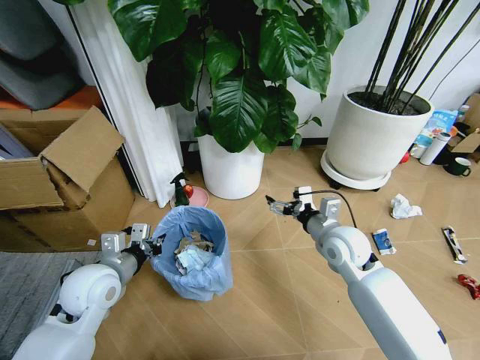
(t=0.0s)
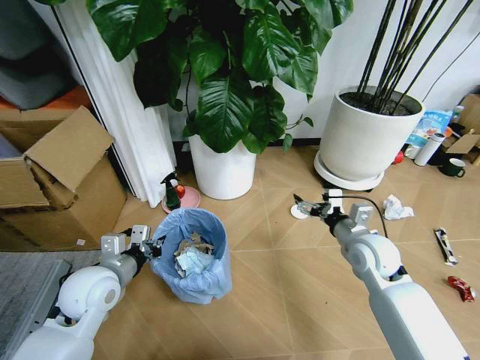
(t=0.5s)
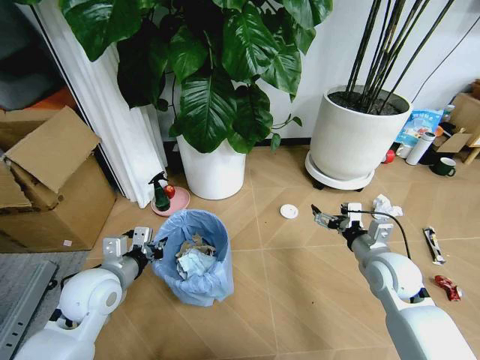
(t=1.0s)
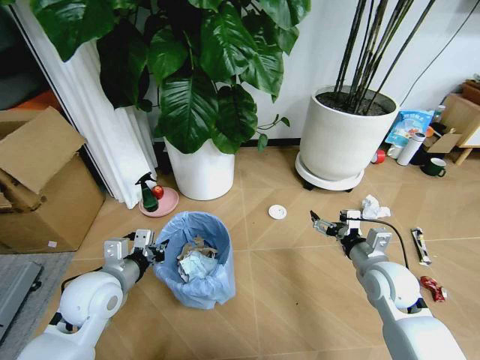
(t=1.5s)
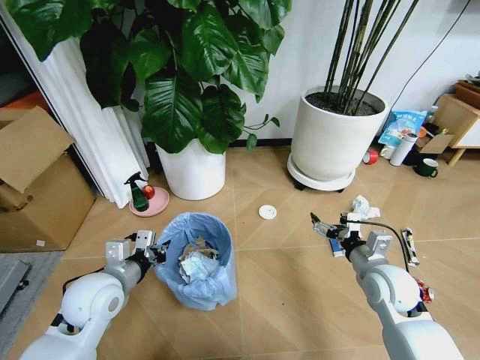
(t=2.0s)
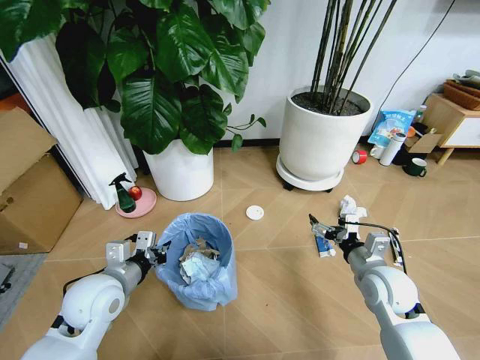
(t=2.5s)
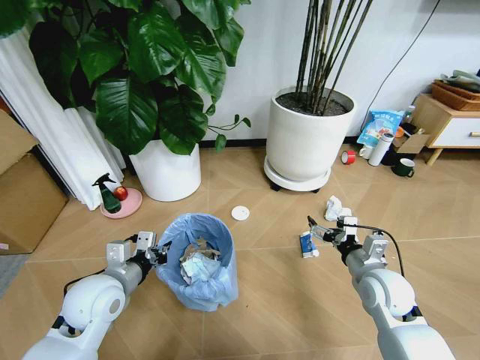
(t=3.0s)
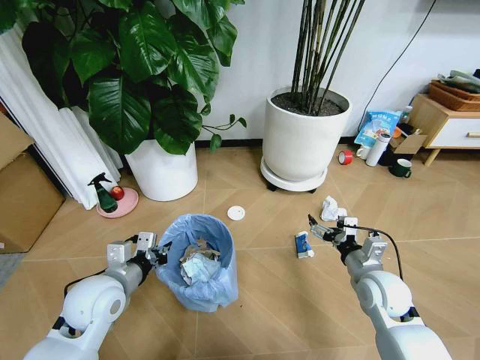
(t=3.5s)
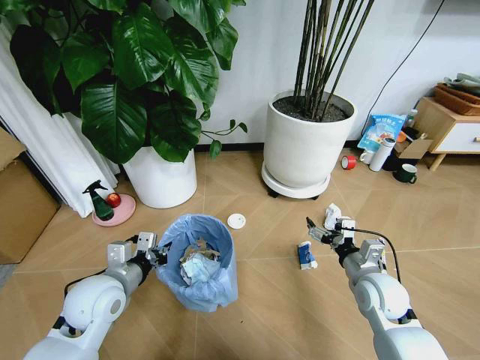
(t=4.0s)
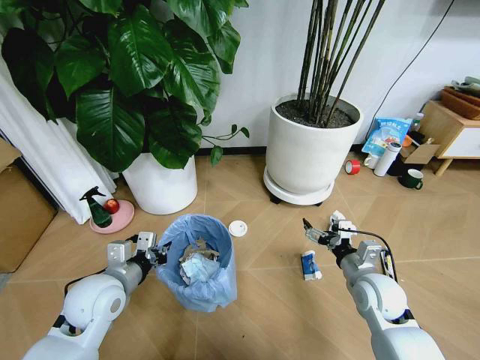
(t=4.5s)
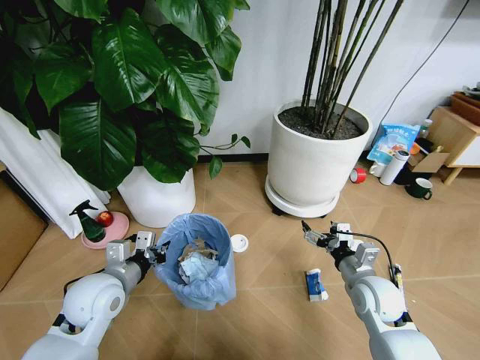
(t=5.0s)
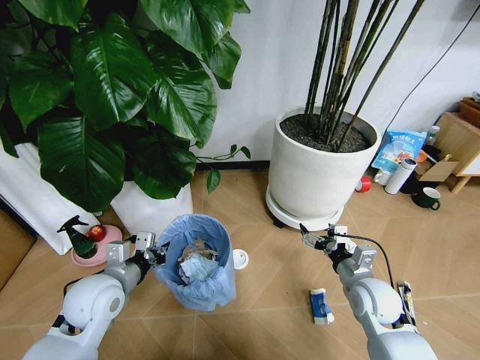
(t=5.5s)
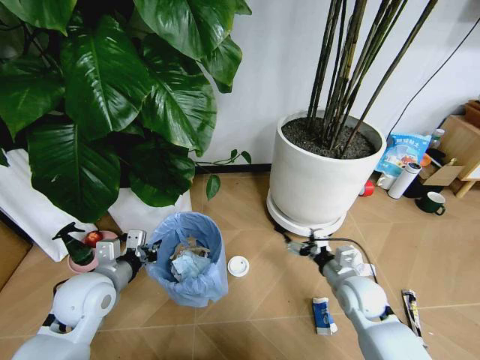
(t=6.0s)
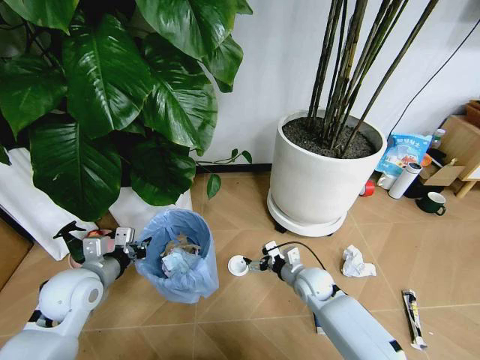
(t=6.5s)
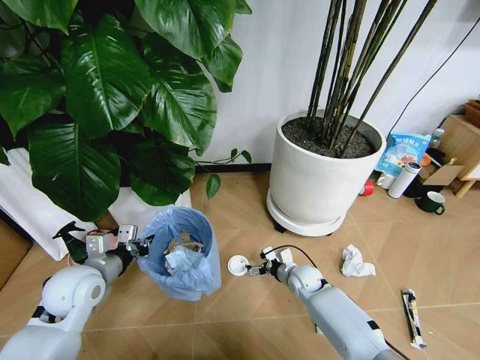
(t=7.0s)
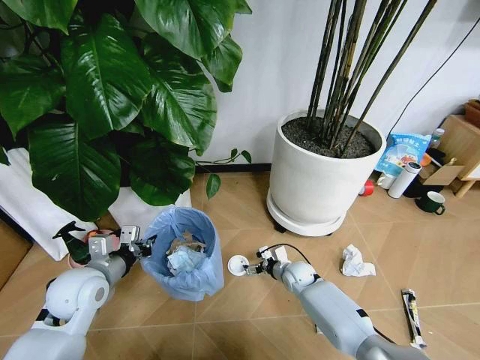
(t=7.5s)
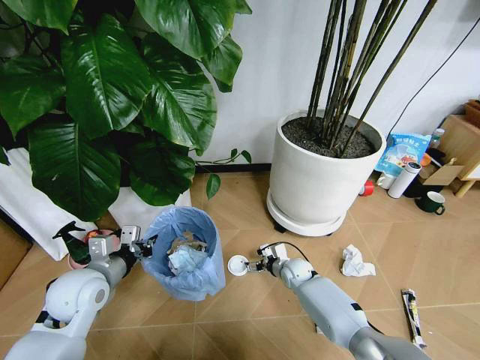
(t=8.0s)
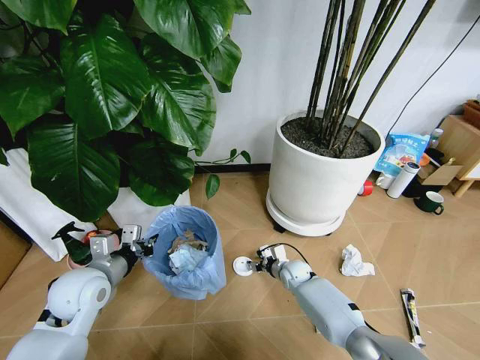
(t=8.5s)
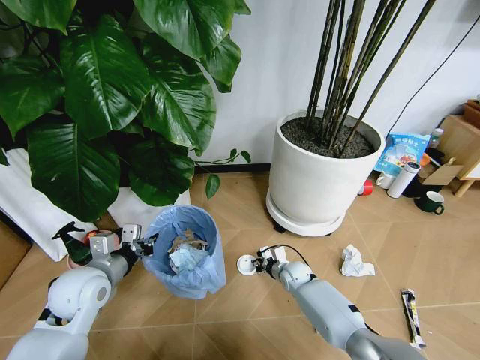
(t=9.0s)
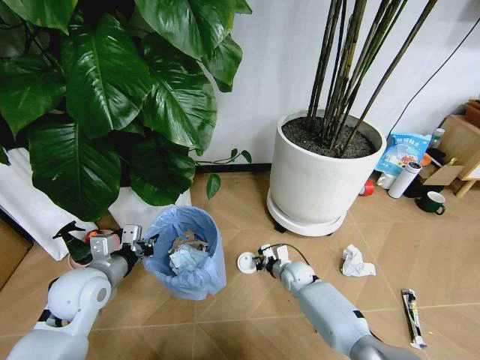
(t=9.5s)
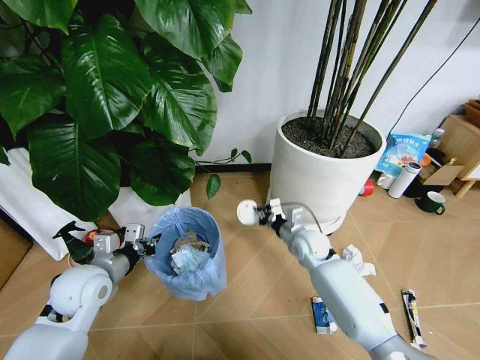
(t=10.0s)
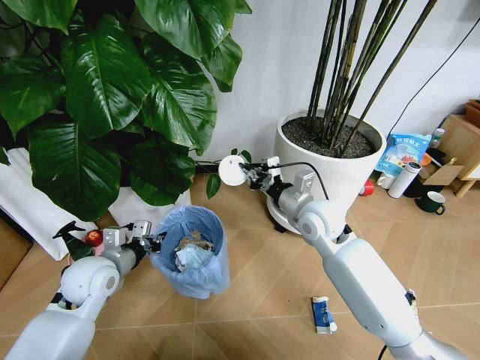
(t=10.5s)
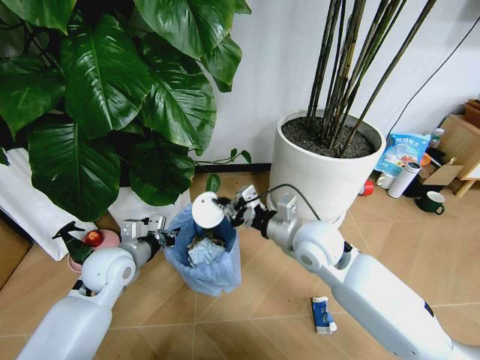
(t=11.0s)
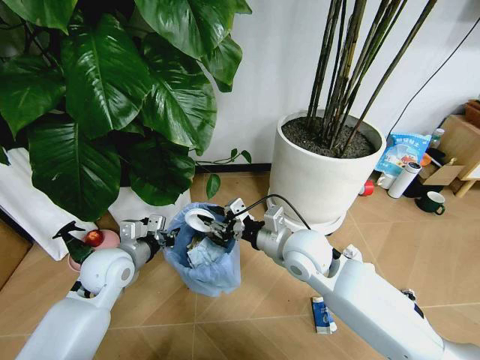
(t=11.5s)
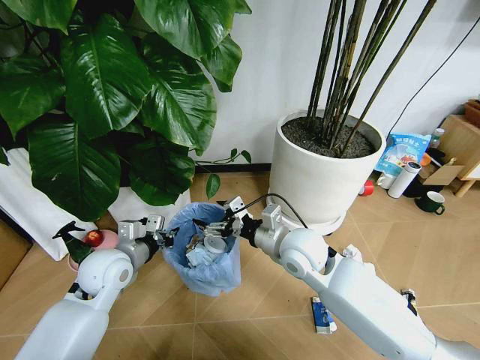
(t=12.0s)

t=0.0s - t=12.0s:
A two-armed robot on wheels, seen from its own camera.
Task of the whole recording: Pick up the trash bin and place the garbage on the floor into it.
t=0.0s - t=2.0s: The right gripper moves to the right and backward, some 10 cm.
t=4.0s - t=6.0s: The right gripper shifts by some 5 cm.
t=6.0s - t=8.0s: The right gripper is displaced downward, forward and to the left by some 20 cm.
t=8.0s - t=10.0s: The right gripper shifts approximately 15 cm upward, and closes its fingers.
t=10.0s - t=12.0s: The right gripper travels upward, backward and to the left by roughly 20 cm, and opens up.

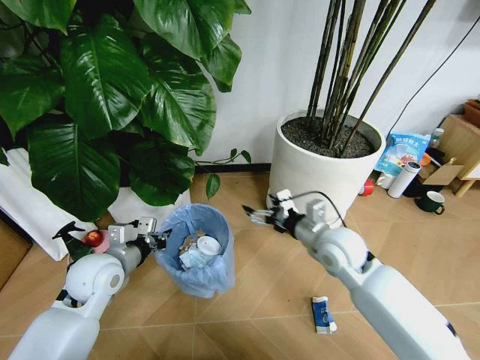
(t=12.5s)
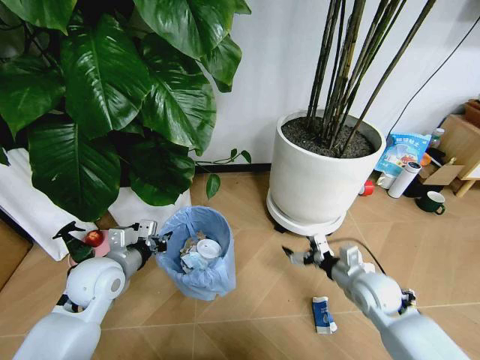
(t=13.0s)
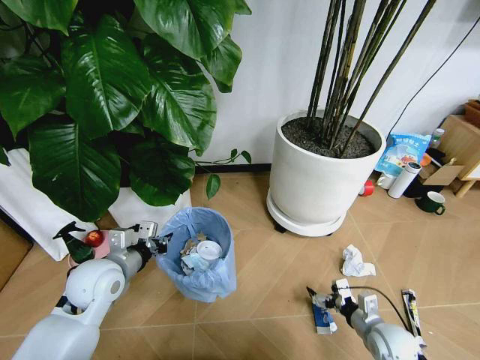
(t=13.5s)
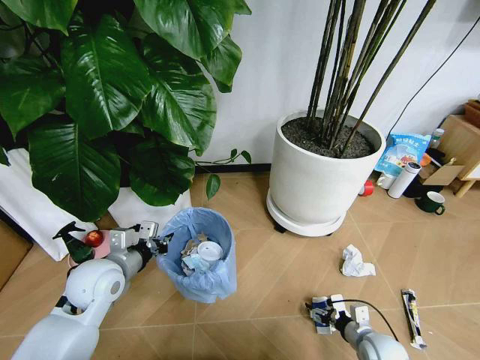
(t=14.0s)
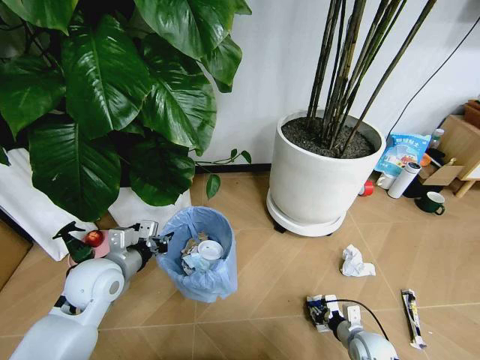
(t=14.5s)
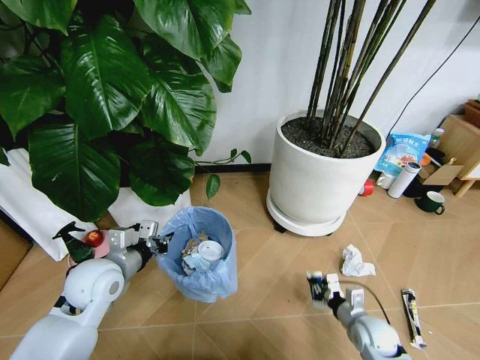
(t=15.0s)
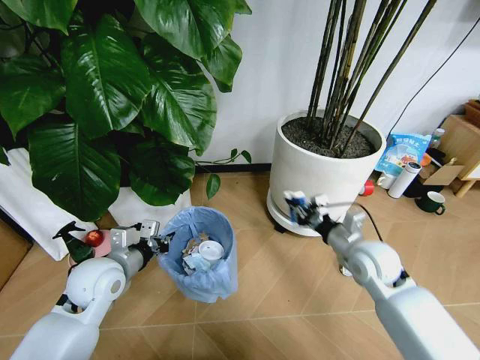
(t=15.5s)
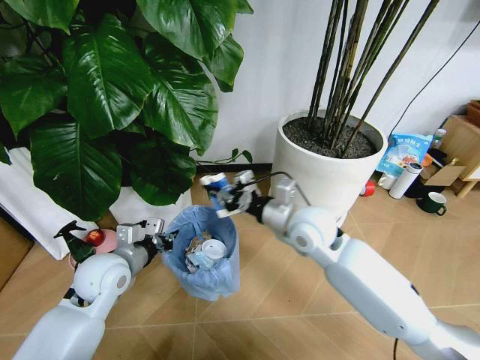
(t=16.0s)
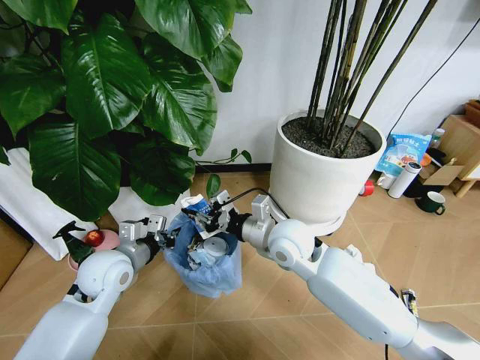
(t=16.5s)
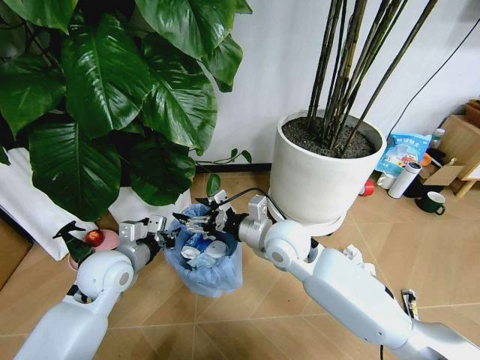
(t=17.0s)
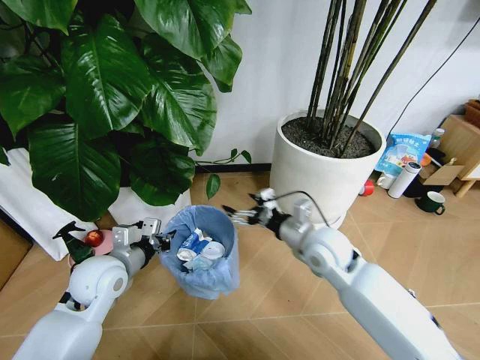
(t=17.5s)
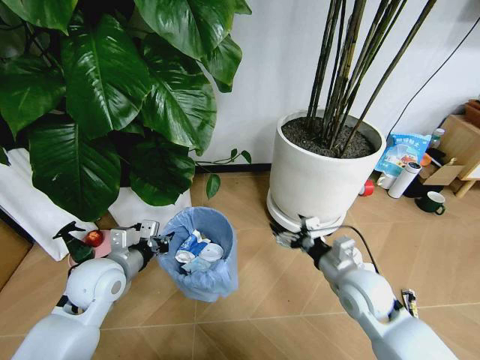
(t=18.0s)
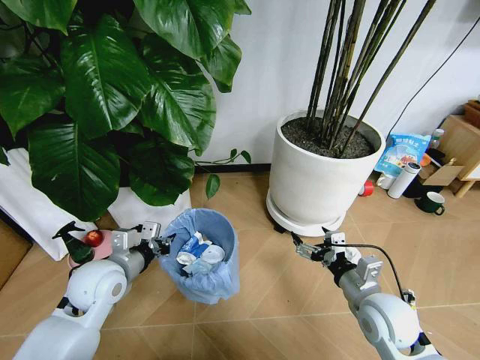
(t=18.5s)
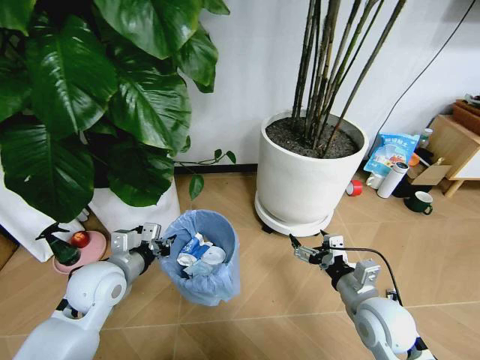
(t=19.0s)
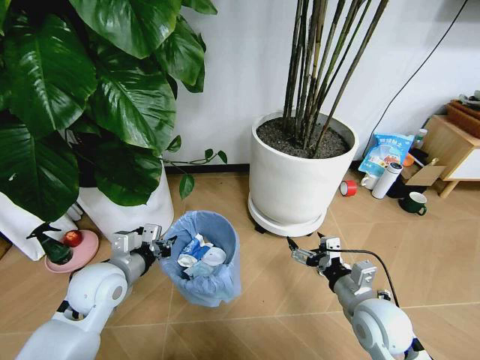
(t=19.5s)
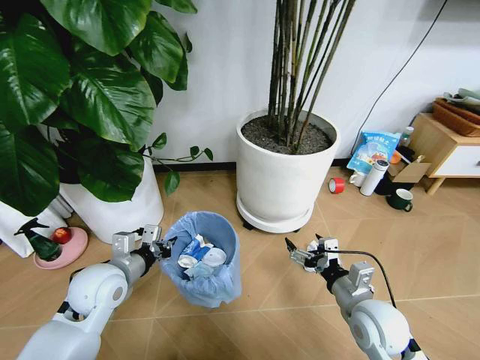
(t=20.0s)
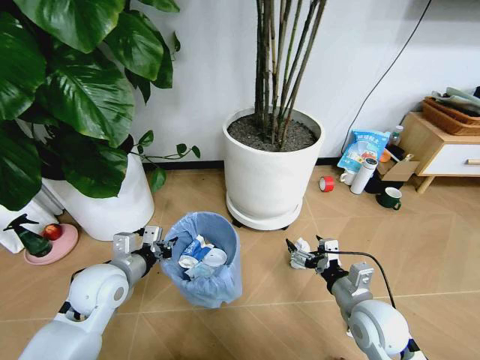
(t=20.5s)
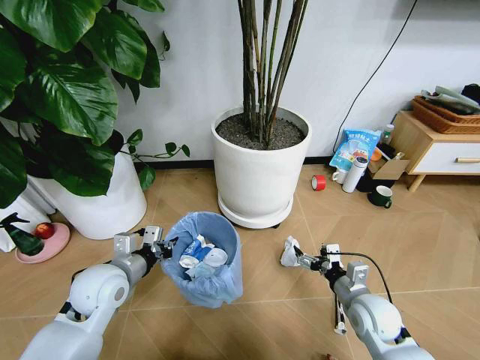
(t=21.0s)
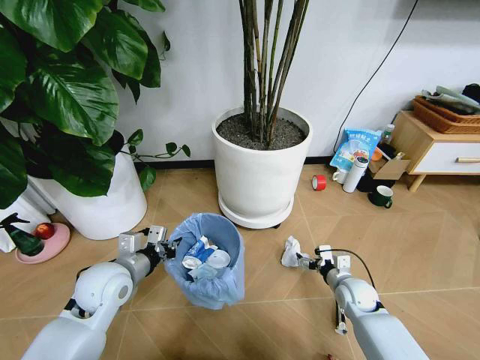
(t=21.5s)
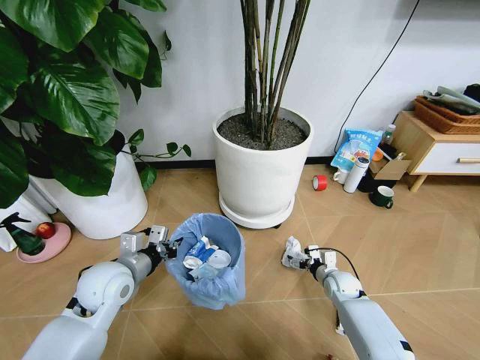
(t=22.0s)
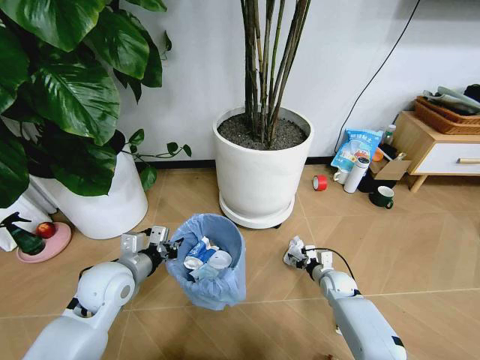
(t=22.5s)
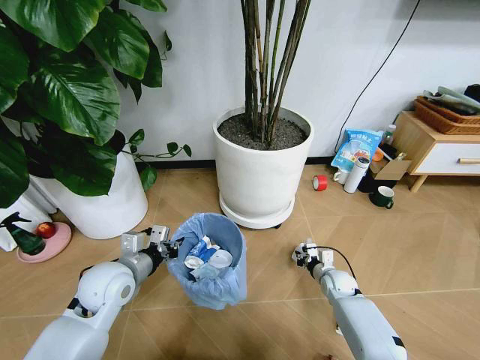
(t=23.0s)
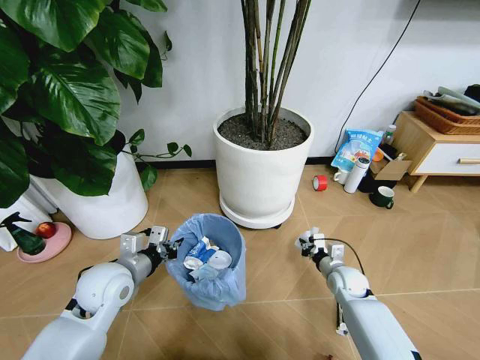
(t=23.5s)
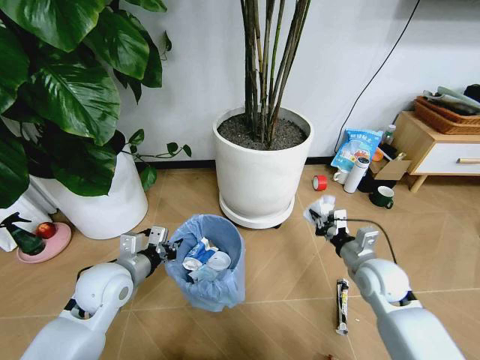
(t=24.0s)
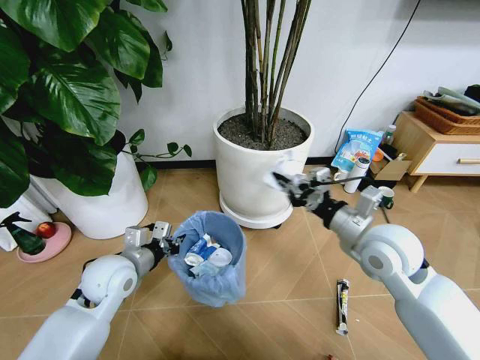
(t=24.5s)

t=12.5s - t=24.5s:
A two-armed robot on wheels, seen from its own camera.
Task of the whole recording: Pick up the trash bin and place the garbage on the floor into it.
t=12.5s - t=14.5s: The right gripper travels downward, backward and to the right by some 35 cm, and closes.
t=14.5s - t=16.5s: The right gripper heads upward, to the left and forward, covering approximately 40 cm.
t=16.5s - t=18.5s: The right gripper heads to the right, backward and downward, covering some 25 cm, and opens up.
t=20.5s - t=22.5s: The right gripper travels downward and forward by approximately 25 cm, and closes up.
t=22.5s - t=24.5s: The right gripper moves upward, some 35 cm, and closes up.

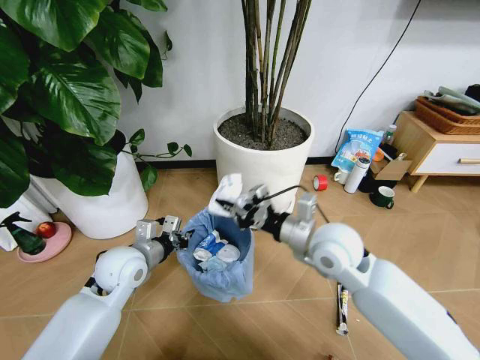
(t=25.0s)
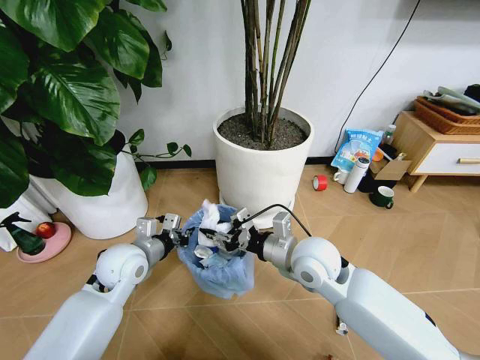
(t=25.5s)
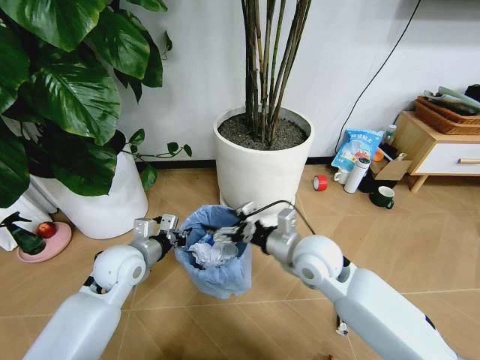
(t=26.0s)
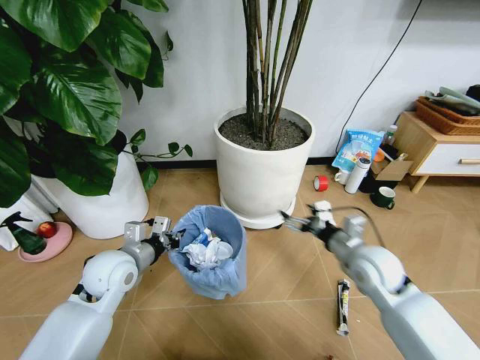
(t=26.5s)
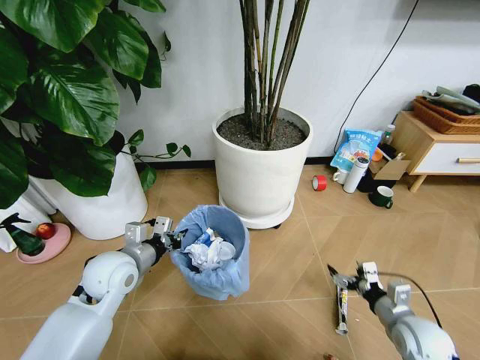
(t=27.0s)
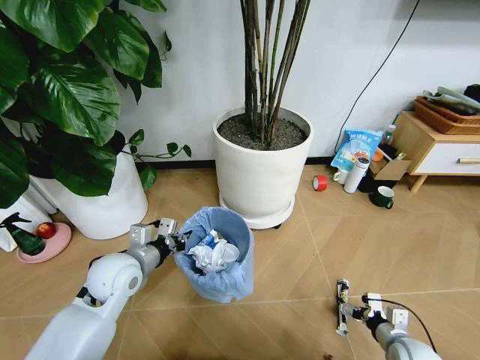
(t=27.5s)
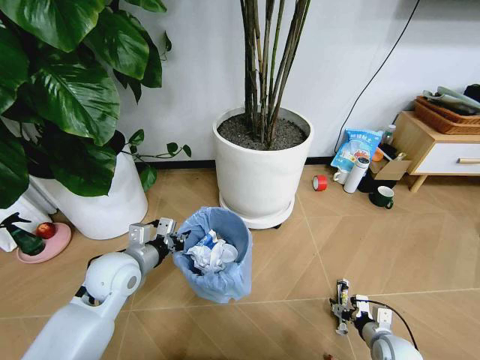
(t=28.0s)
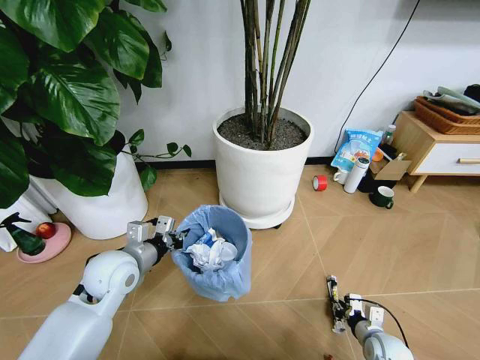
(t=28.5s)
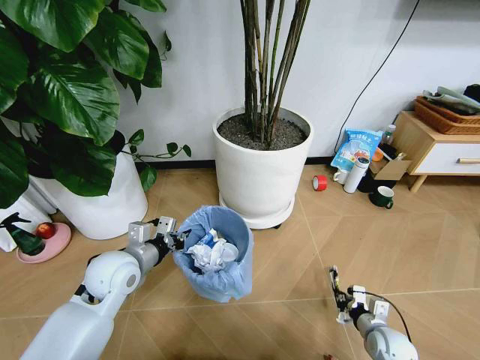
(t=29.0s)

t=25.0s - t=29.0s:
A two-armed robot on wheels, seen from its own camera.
Task of the whole recording: Pick up the trash bin and place the garbage on the floor into it.
t=25.0s - t=27.0s: The right gripper goes roughly 30 cm to the right, downward and backward, and opens.
t=27.0s - t=29.0s: The right gripper goes about 10 cm downward, and closes up.
